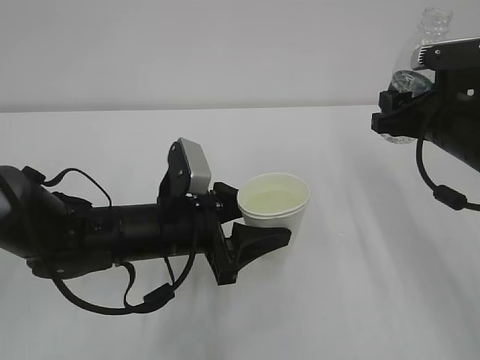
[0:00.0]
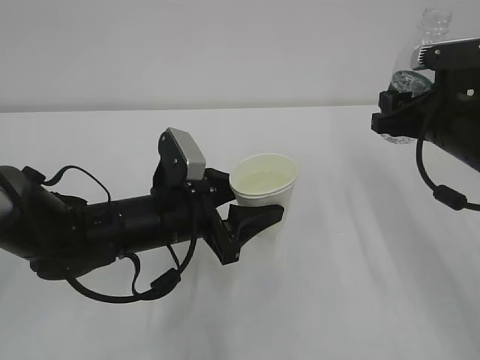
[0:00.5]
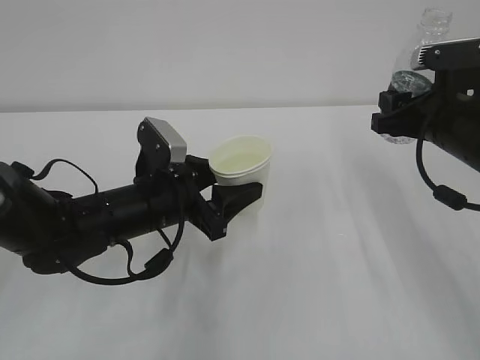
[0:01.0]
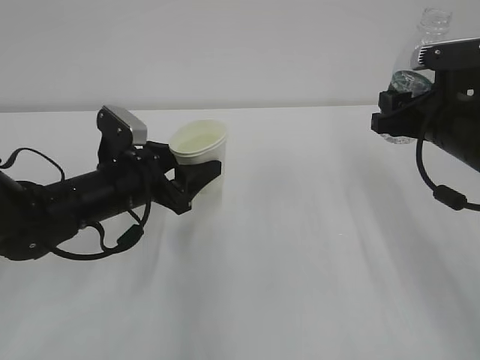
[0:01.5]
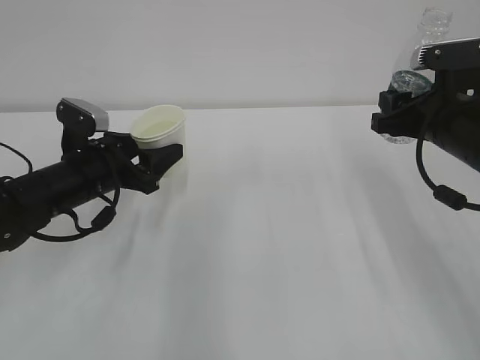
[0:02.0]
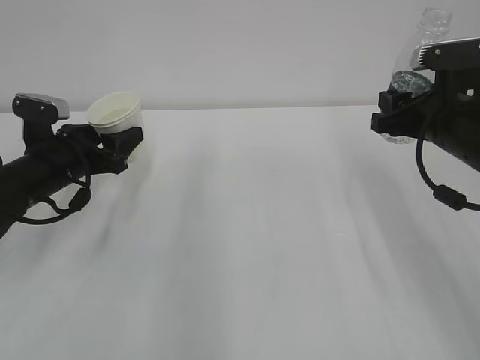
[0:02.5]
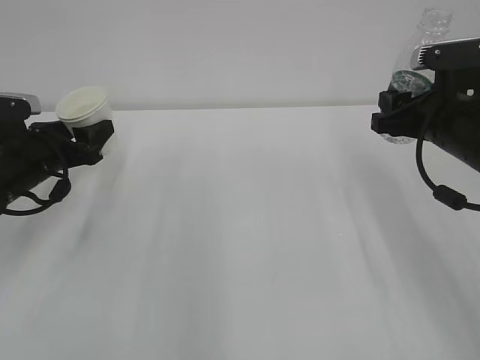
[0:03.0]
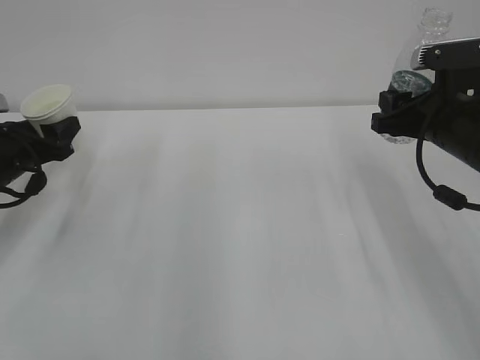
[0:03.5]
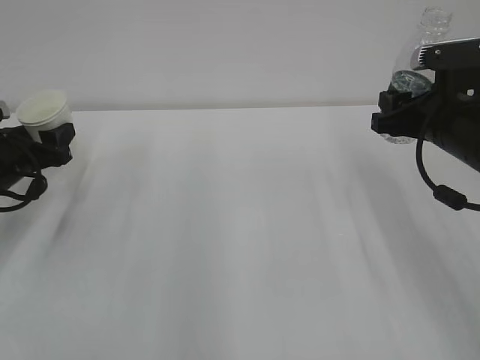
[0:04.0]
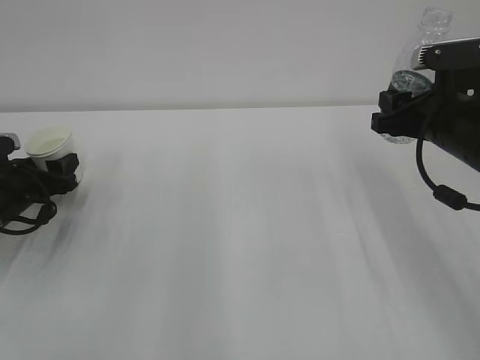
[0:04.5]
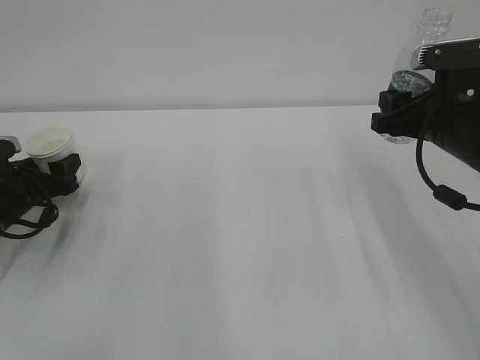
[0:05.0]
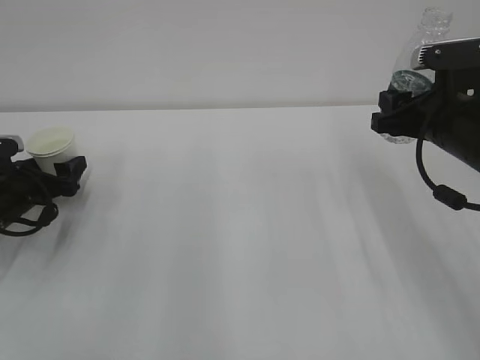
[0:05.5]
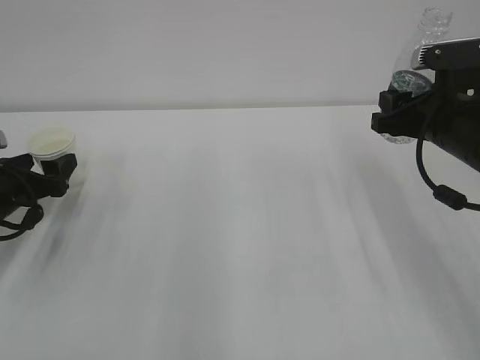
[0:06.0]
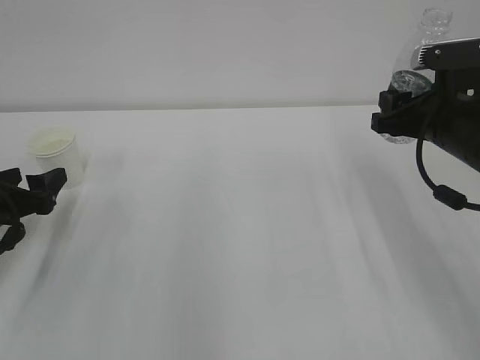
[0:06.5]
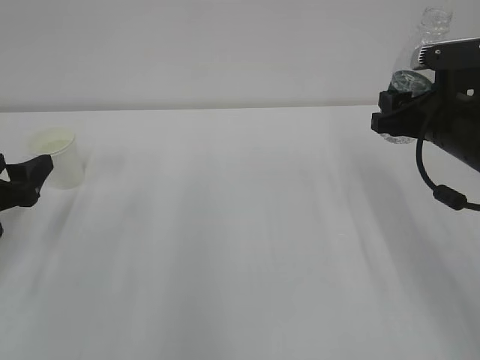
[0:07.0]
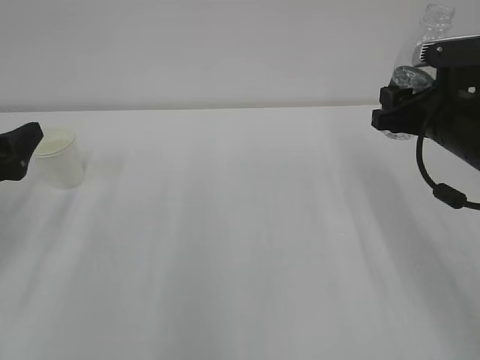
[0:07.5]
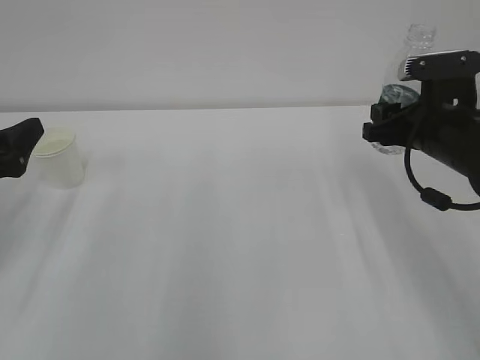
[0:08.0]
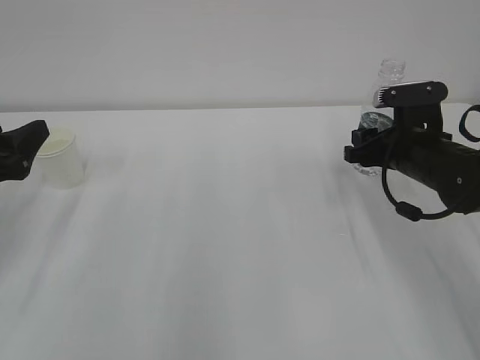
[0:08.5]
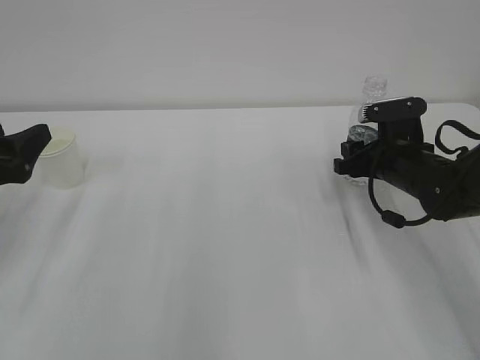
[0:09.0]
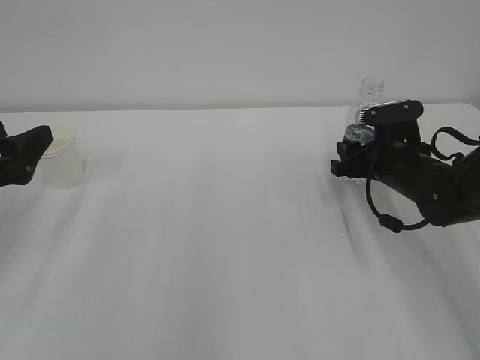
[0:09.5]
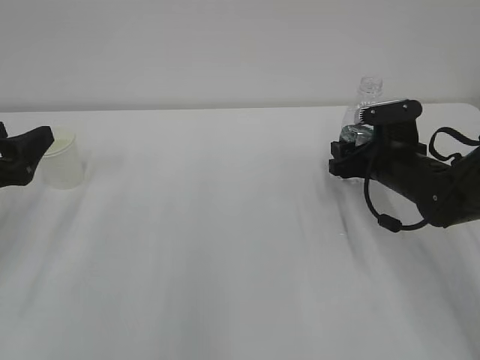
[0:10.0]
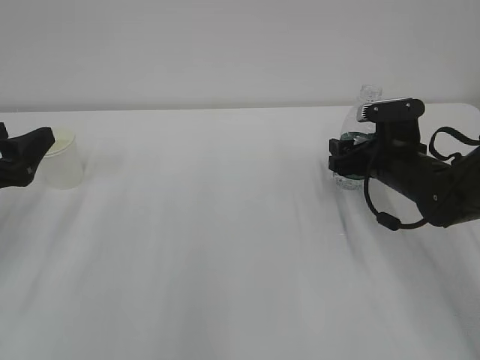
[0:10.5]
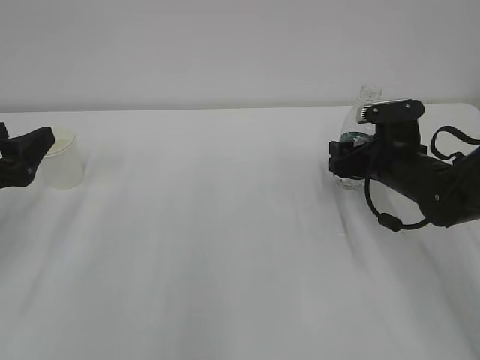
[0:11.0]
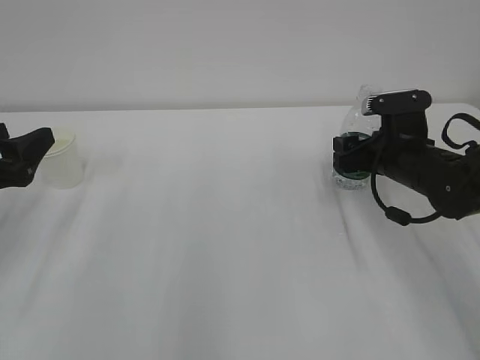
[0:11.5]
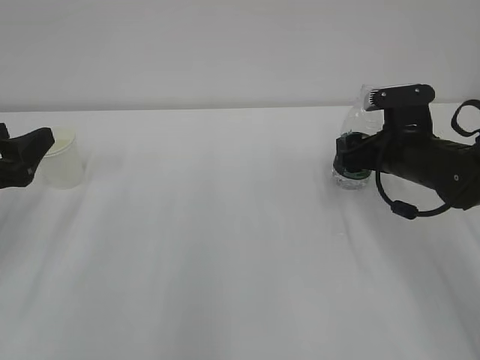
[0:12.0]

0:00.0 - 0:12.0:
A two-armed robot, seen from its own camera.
0:00.0 - 0:02.0: The left gripper travels to the left and forward by approximately 15 cm.
0:02.0 - 0:04.0: The left gripper is displaced to the left by approximately 10 cm.
0:04.0 - 0:06.0: The left gripper opens up.
0:06.0 - 0:08.0: The left gripper travels upward and backward by about 10 cm.
0:08.0 - 0:10.0: The right gripper is displaced downward by roughly 10 cm, and opens its fingers.
0:10.0 - 0:12.0: The grippers make only small movements.

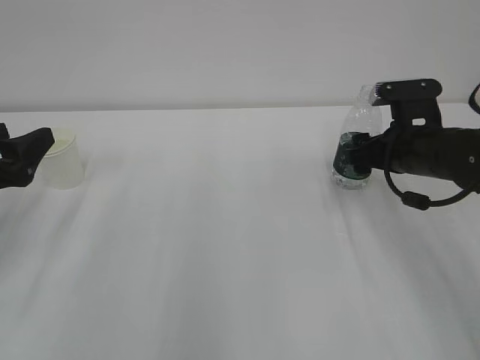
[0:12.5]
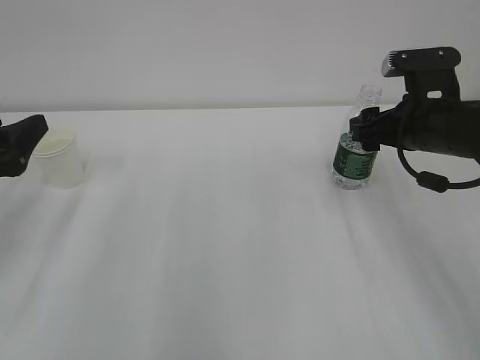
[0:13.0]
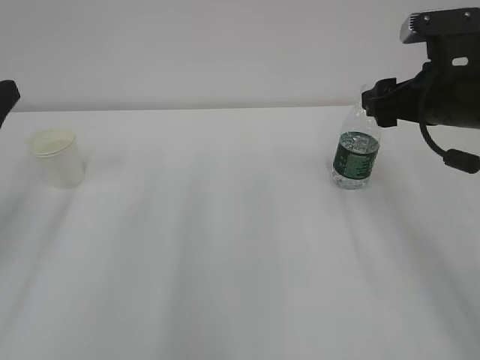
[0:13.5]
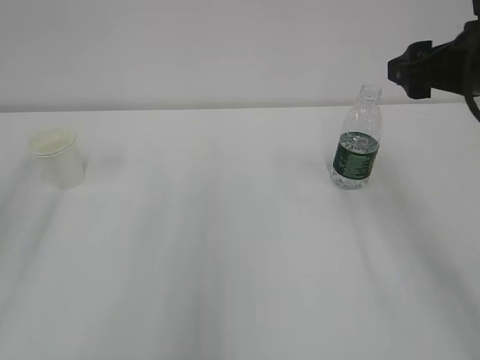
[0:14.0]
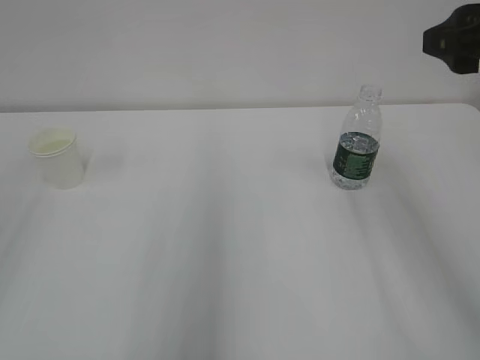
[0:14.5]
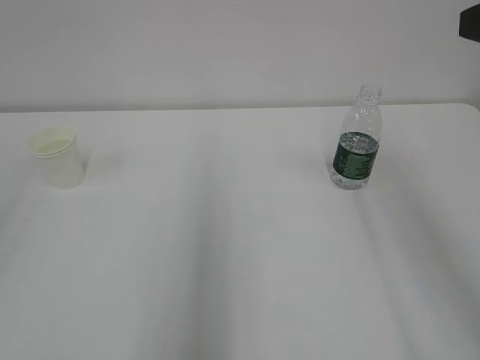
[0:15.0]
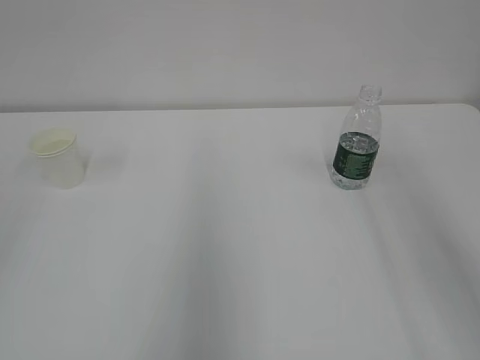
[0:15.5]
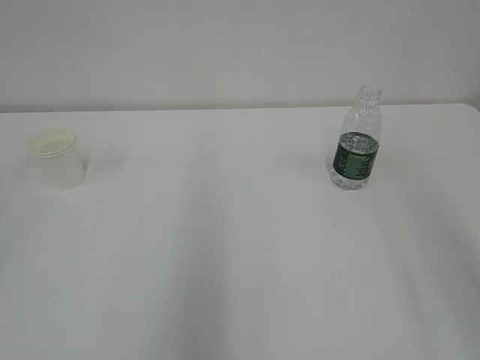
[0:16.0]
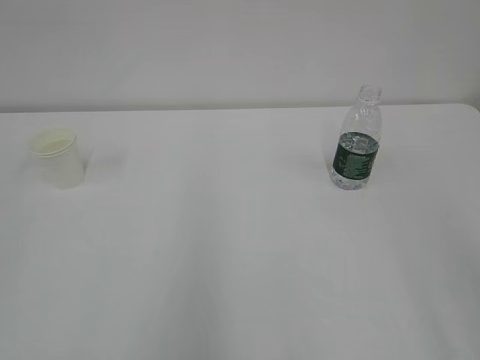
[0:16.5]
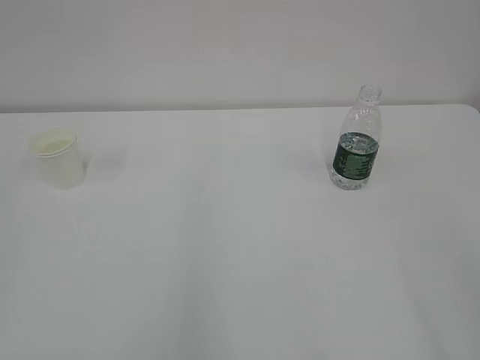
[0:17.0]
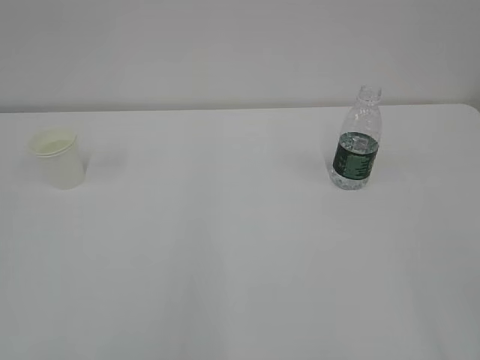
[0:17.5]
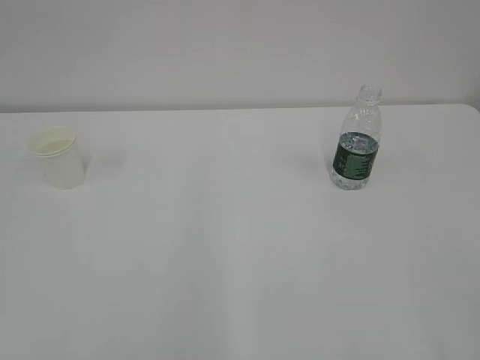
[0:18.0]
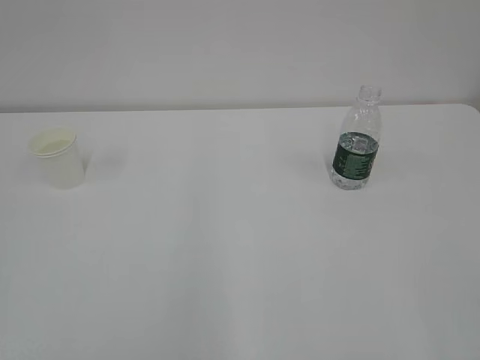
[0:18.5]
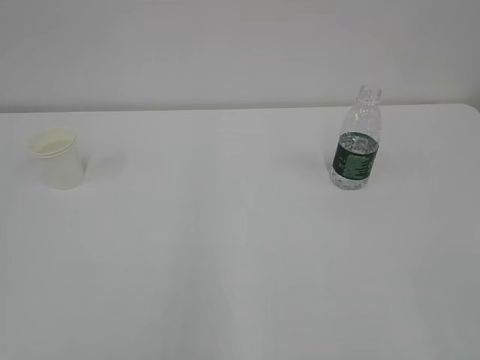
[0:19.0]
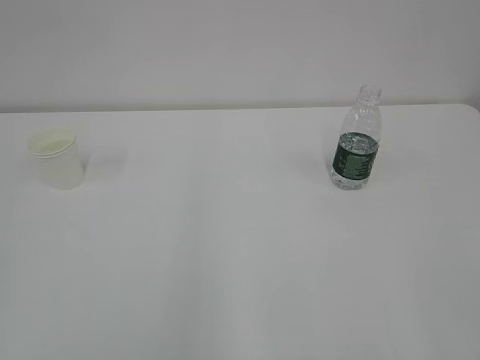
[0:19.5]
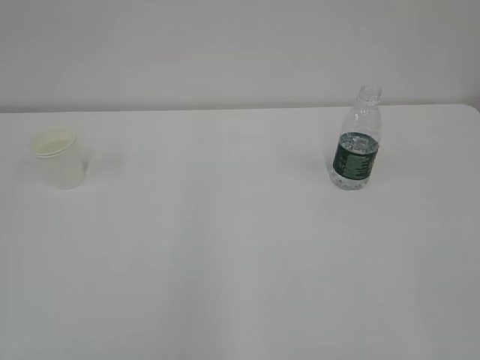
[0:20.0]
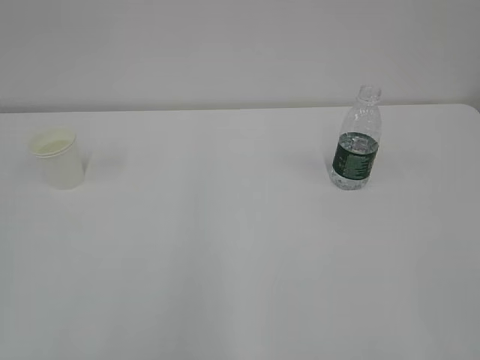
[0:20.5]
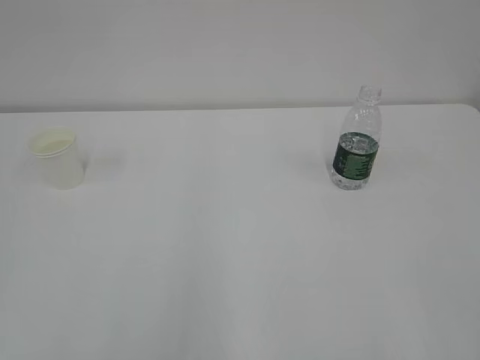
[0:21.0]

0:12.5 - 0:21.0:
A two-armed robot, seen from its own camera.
0:12.5 - 0:14.5: The two grippers go about 20 cm upward and backward.
0:14.5 - 0:16.5: The right gripper shifts roughly 20 cm backward.

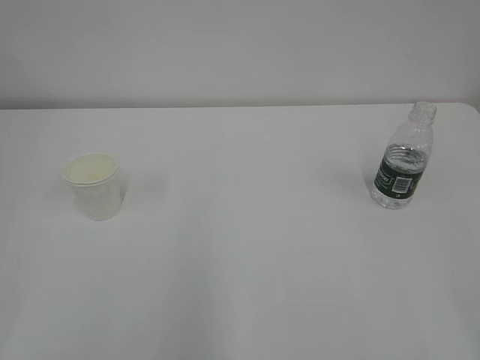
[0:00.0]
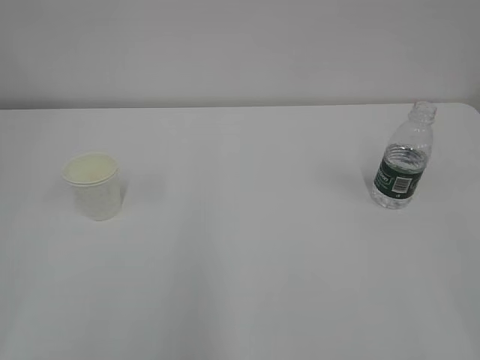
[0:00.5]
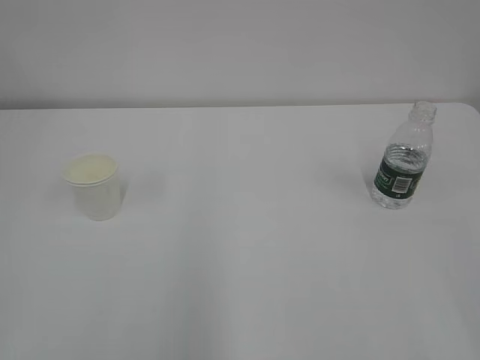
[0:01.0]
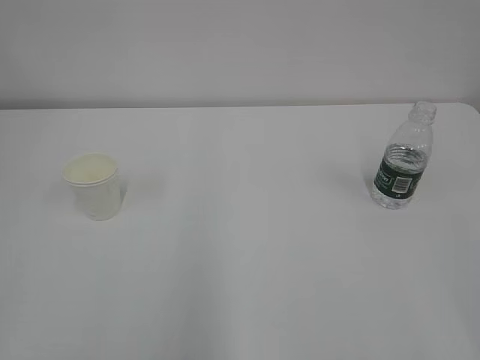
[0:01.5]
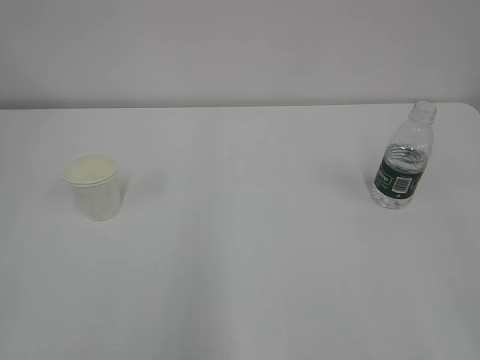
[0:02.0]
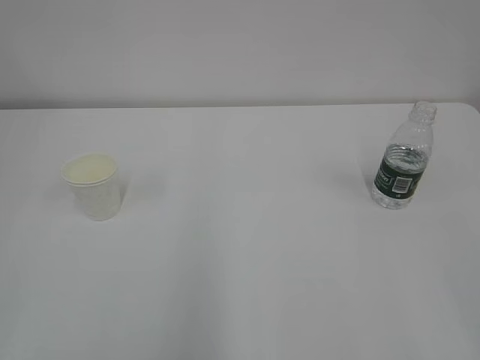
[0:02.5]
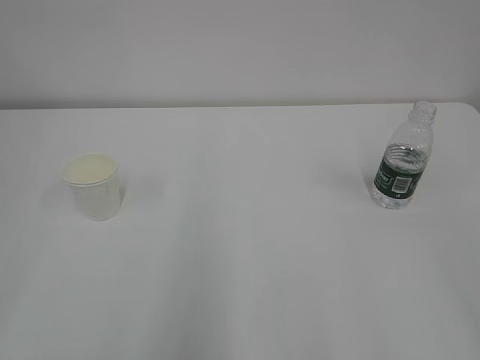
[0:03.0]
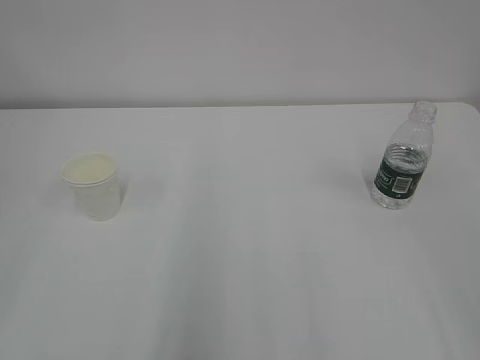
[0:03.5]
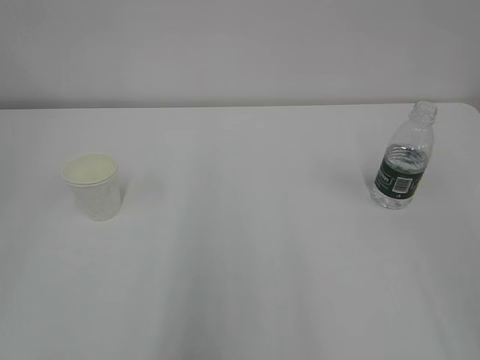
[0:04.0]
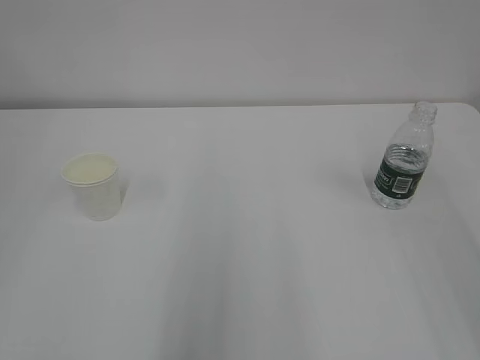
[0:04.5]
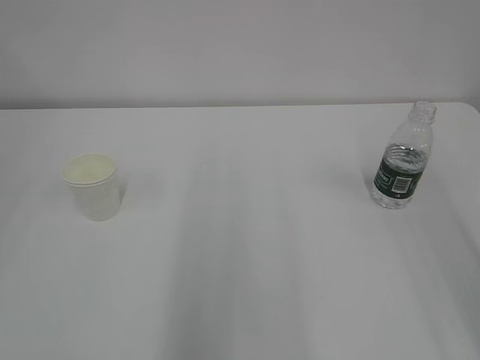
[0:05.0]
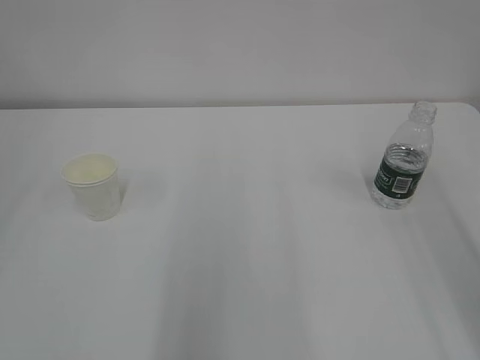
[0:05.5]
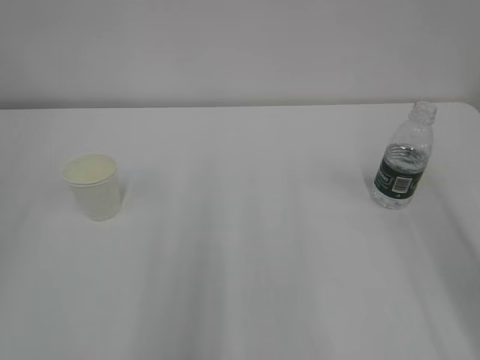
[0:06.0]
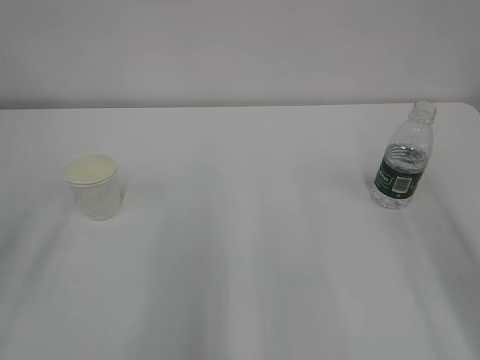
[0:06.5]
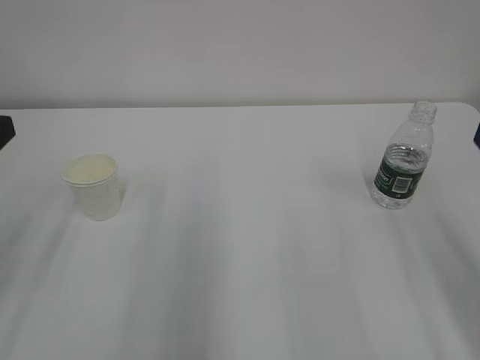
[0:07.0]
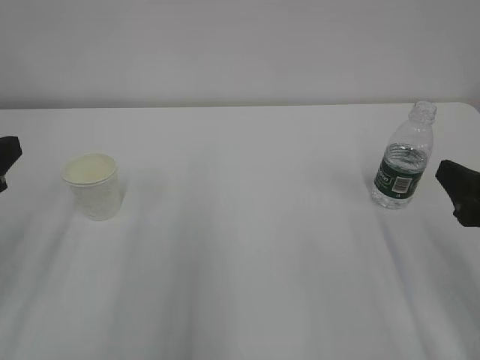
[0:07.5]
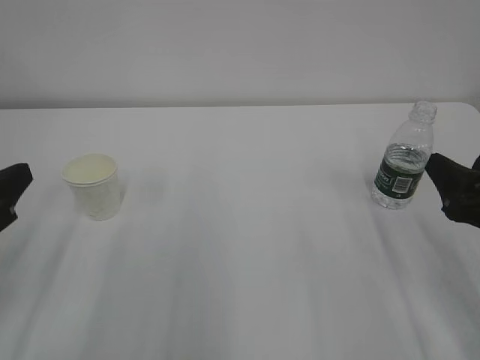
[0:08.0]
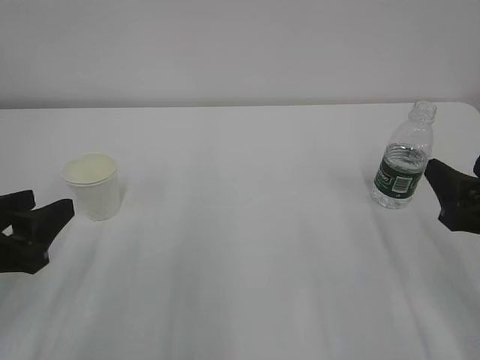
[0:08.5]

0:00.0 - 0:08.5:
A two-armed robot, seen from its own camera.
0:06.5 - 0:08.5: Both grippers travel together downward, roughly 15 cm.
